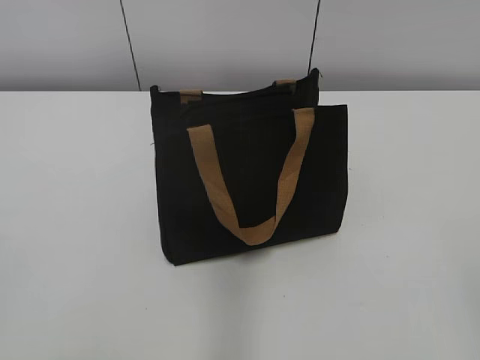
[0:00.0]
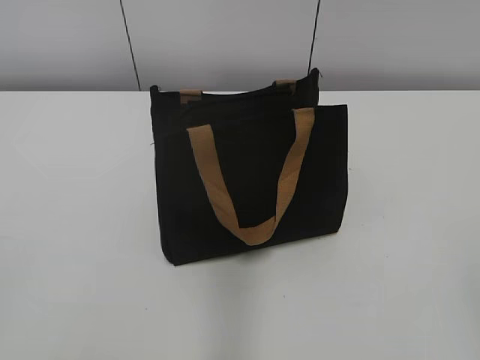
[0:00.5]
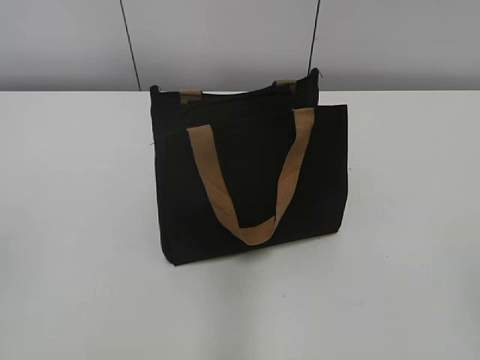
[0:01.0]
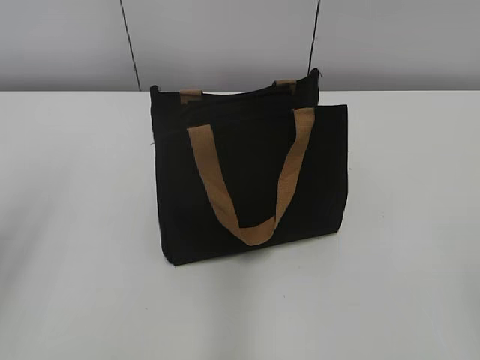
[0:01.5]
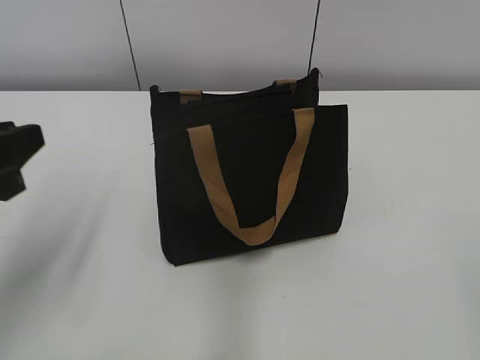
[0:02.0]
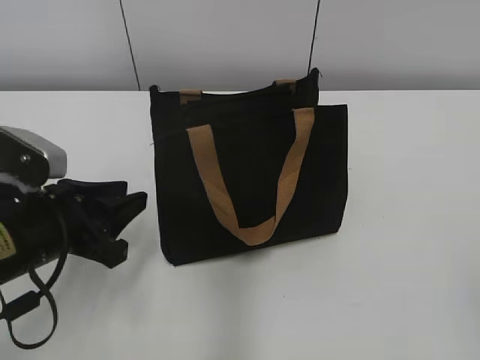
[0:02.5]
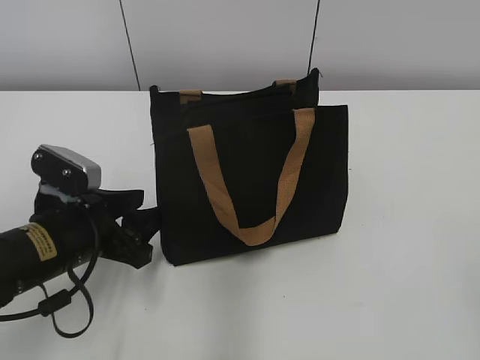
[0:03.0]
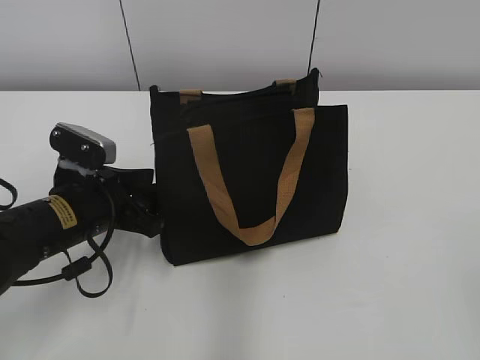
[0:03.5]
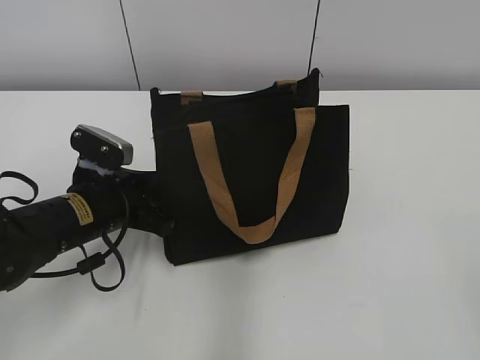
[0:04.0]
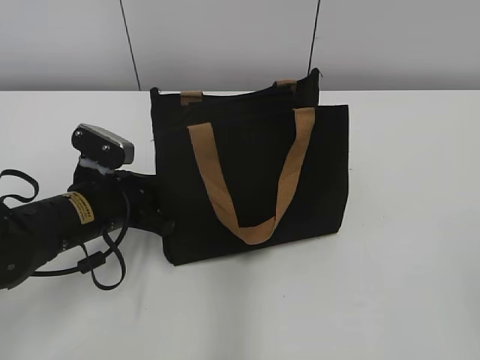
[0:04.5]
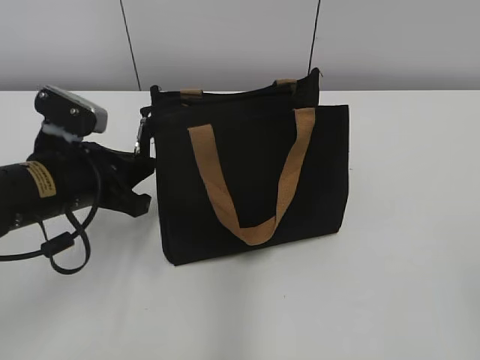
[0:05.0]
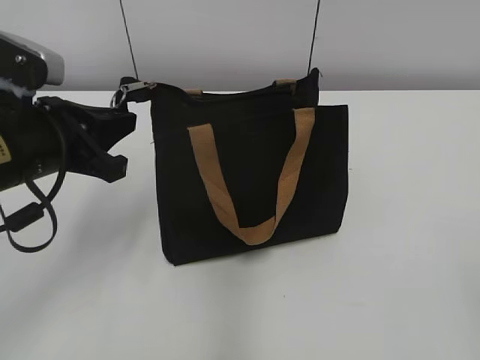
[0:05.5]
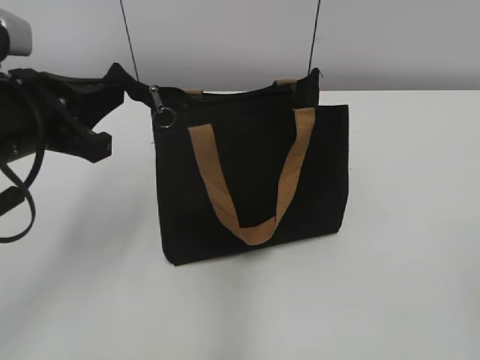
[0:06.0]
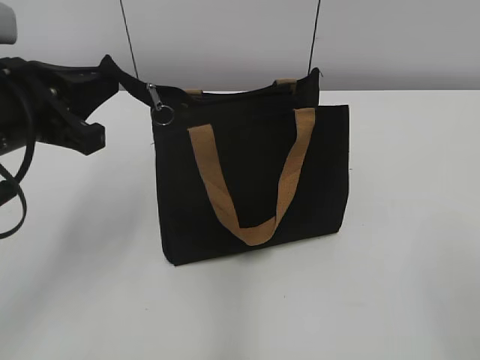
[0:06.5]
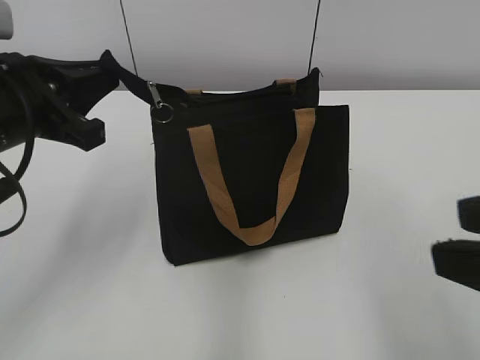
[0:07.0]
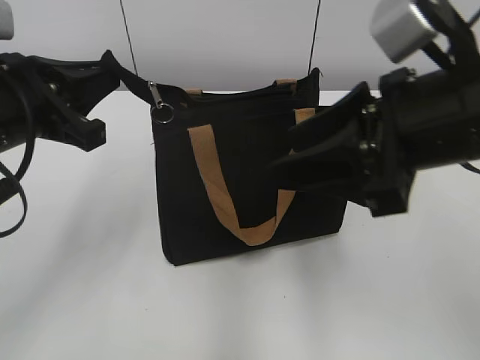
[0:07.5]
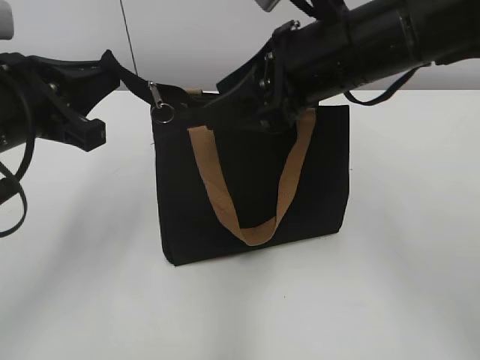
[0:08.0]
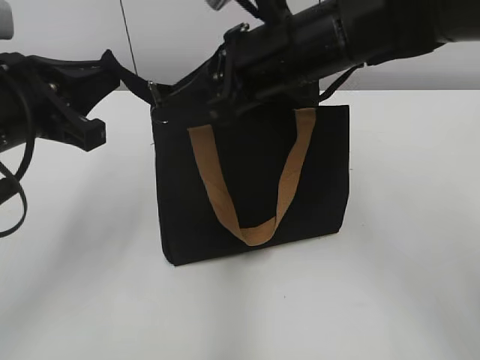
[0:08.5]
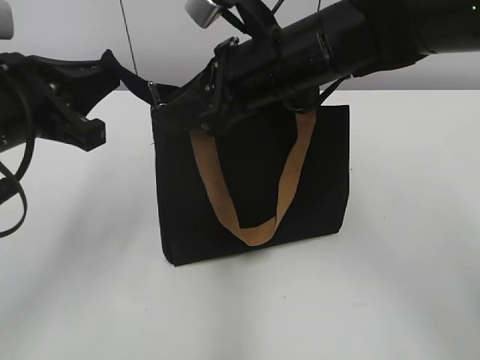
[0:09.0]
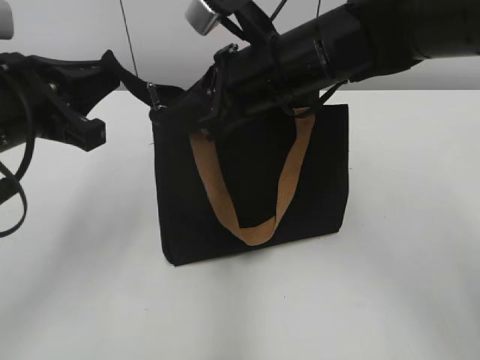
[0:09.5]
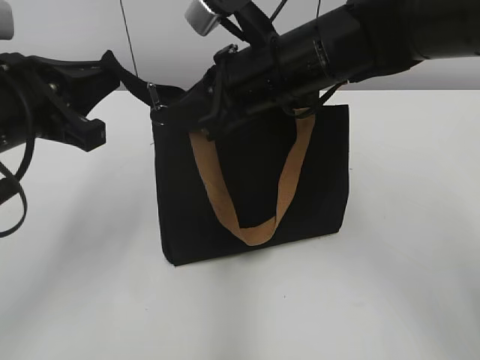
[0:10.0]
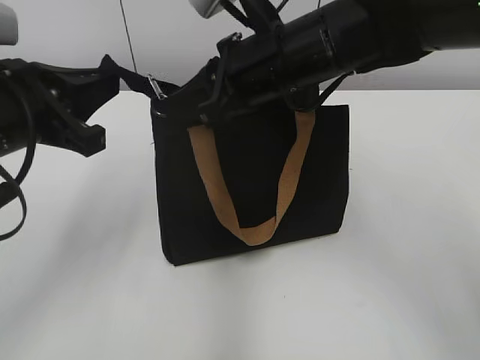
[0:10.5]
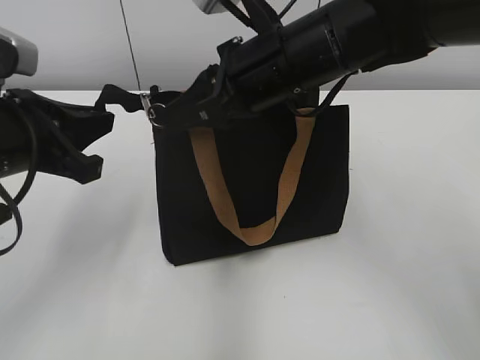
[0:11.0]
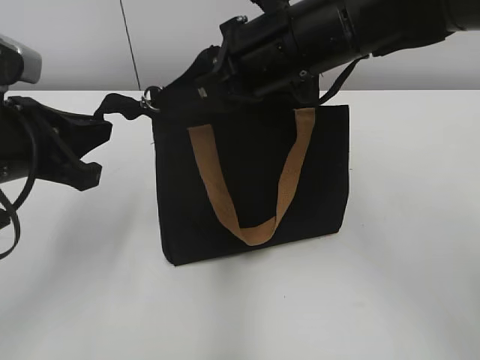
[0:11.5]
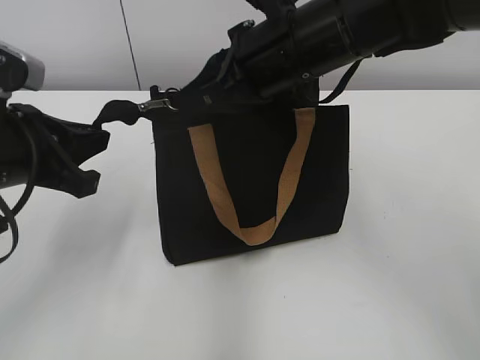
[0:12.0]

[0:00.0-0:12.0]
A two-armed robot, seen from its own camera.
0:02.0 to 0:04.0: The left gripper shifts about 20 cm downward, forward and to the right.
0:04.0 to 0:06.0: The left gripper goes some 15 cm upward, and closes.
0:06.0 to 0:08.0: The right gripper travels forward and to the left by approximately 35 cm.
0:08.0 to 0:10.0: The right gripper ends up some 5 cm from where it was, and closes its fingers.
0:10.0 to 0:12.0: The grippers move only a little.

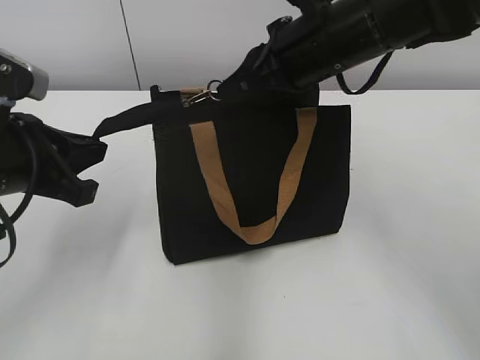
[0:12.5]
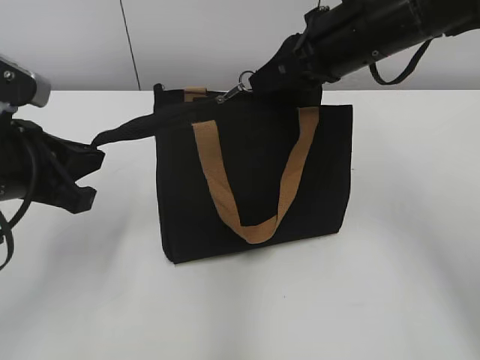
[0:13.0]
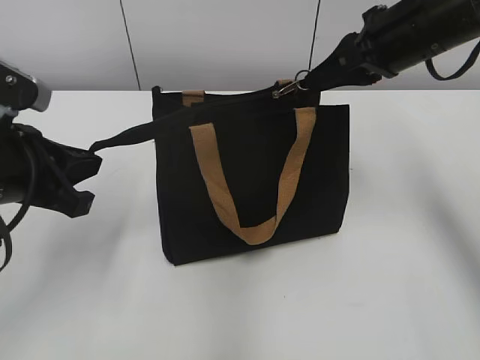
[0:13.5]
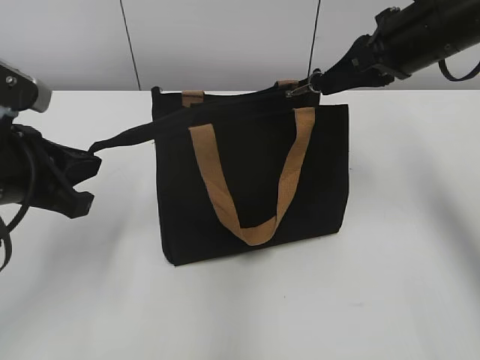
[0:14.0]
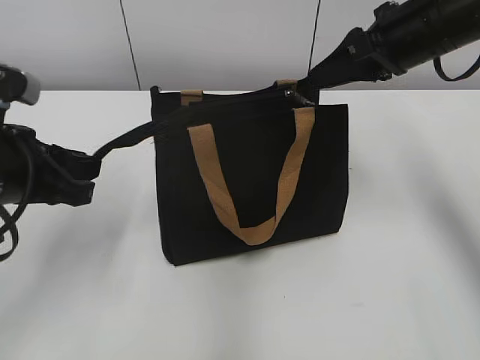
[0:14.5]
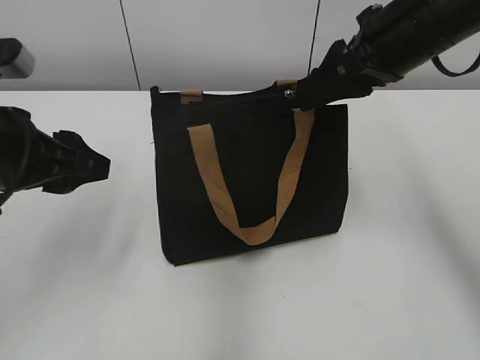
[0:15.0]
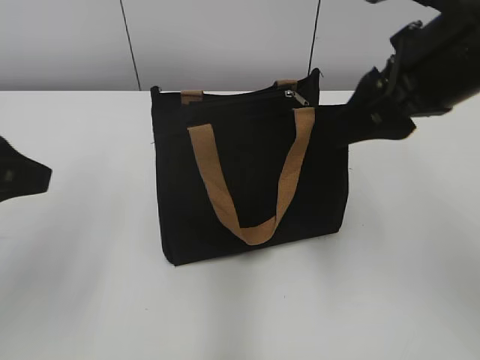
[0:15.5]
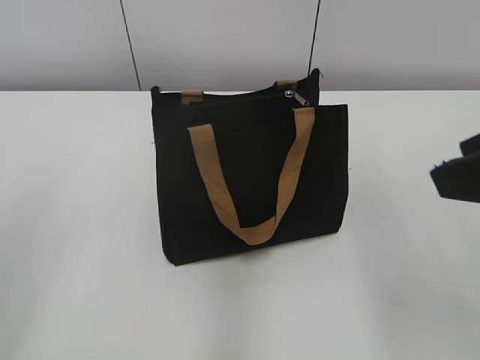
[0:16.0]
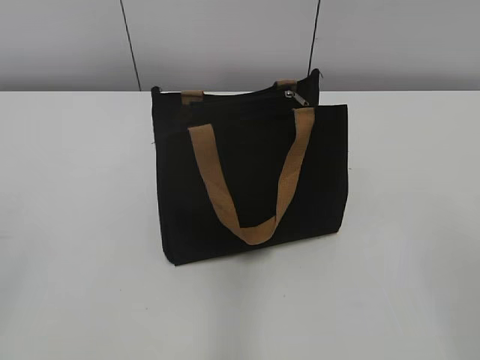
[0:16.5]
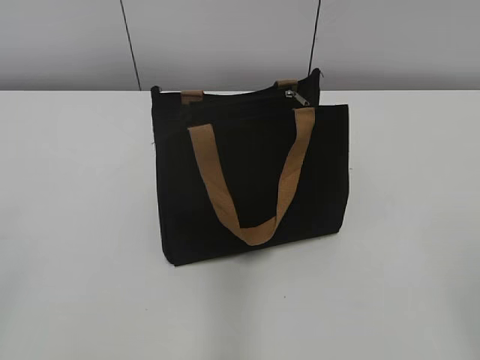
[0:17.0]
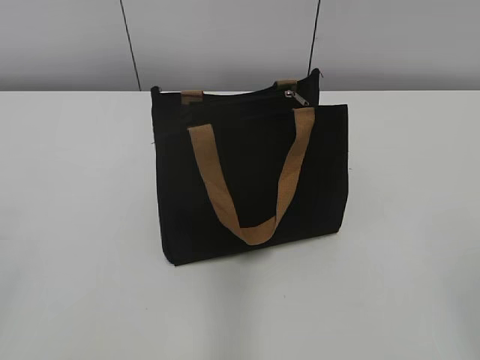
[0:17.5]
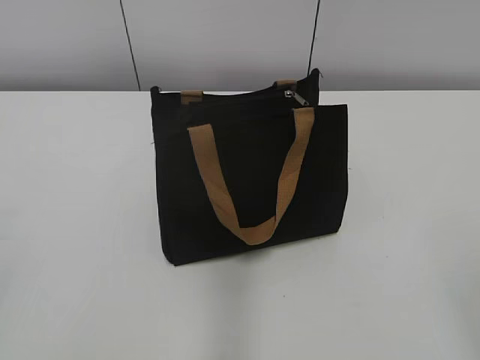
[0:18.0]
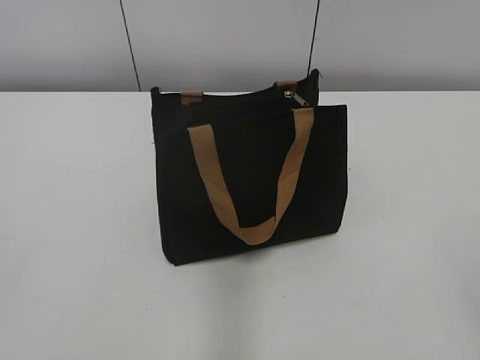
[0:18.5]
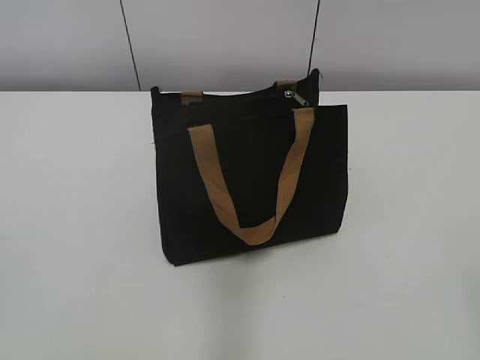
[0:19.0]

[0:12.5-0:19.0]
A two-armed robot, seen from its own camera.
0:12.5 to 0:14.5: The right gripper moves to the right, about 10 cm, and opens its fingers.
0:14.5 to 0:17.0: The right gripper is displaced backward by roughly 35 cm. The left gripper travels backward and to the left by roughly 25 cm, and opens.

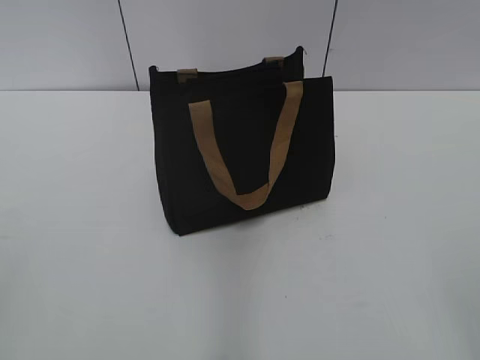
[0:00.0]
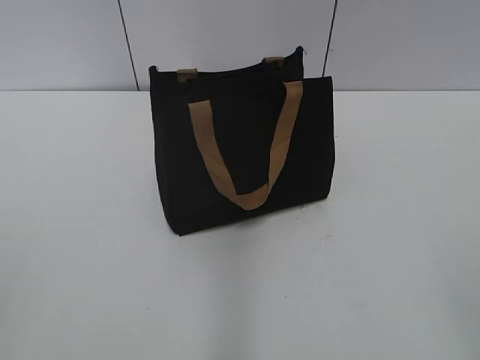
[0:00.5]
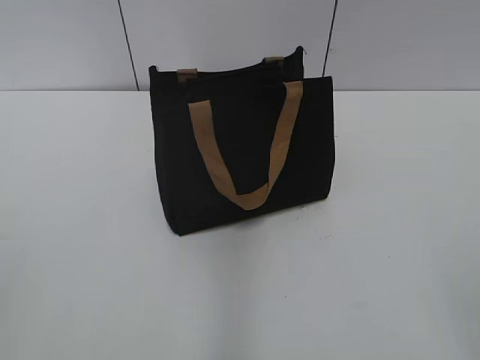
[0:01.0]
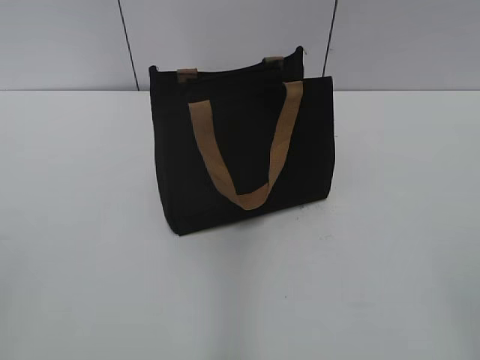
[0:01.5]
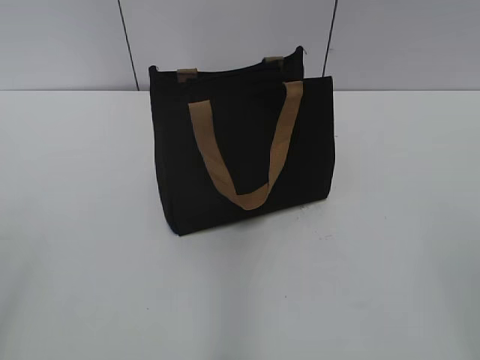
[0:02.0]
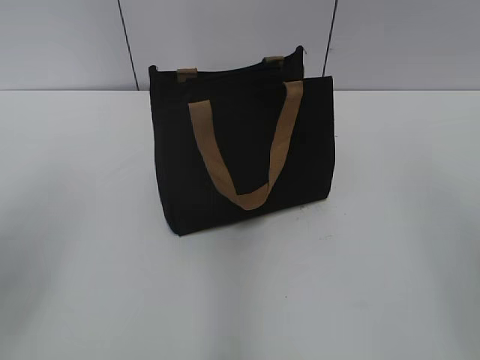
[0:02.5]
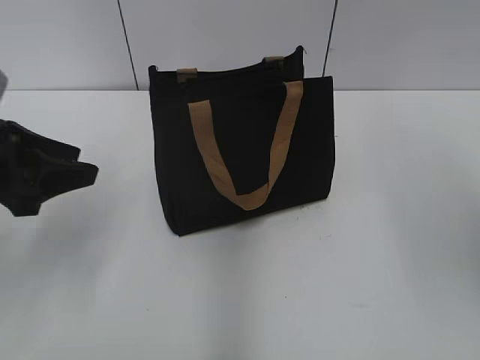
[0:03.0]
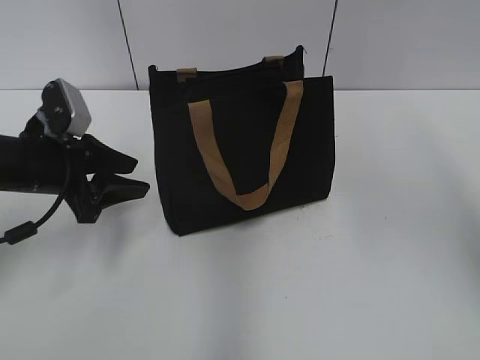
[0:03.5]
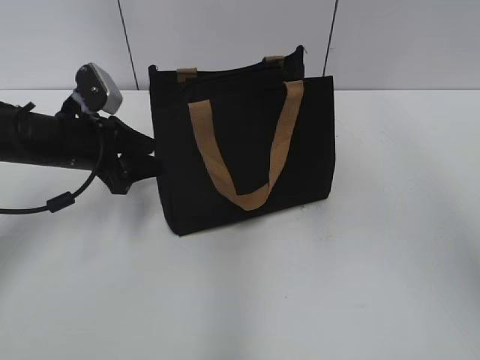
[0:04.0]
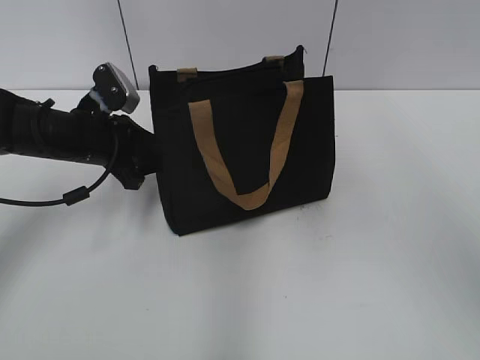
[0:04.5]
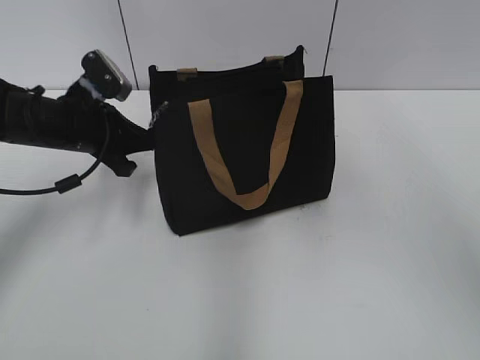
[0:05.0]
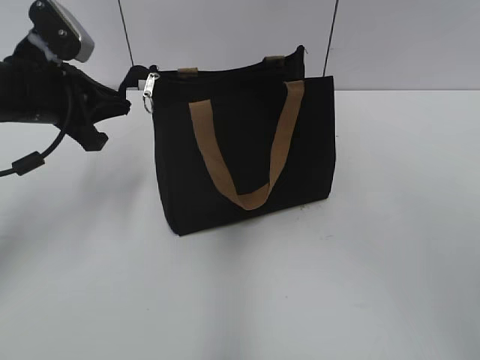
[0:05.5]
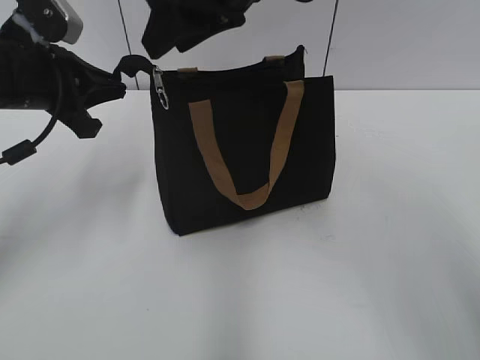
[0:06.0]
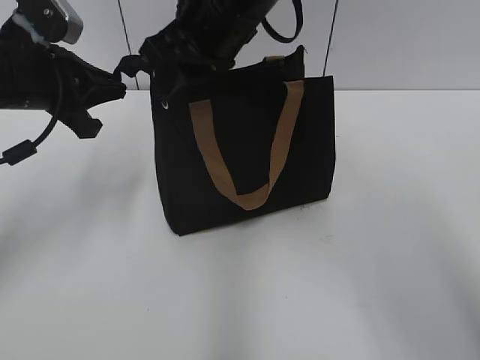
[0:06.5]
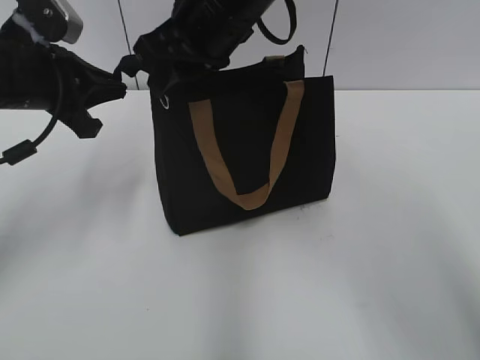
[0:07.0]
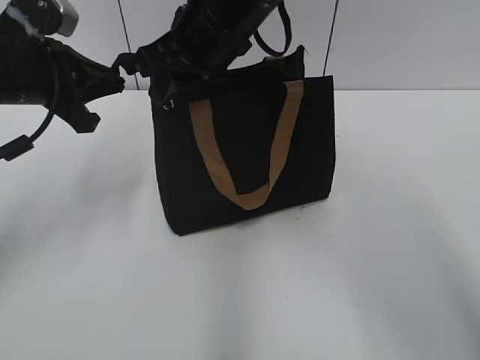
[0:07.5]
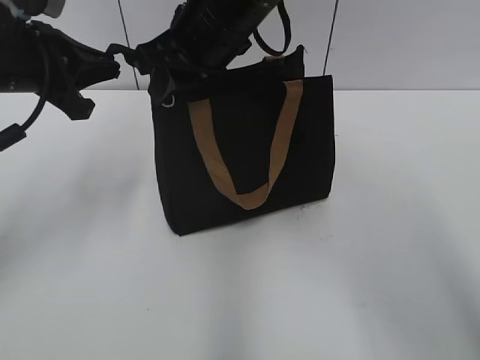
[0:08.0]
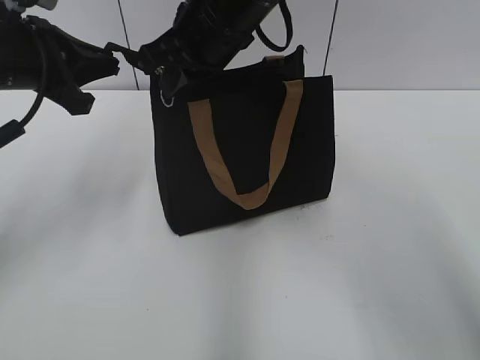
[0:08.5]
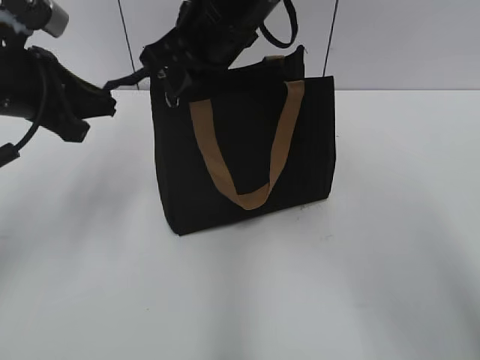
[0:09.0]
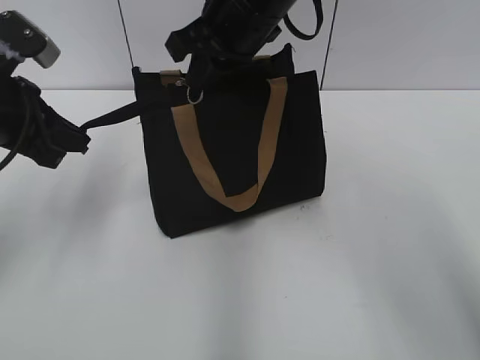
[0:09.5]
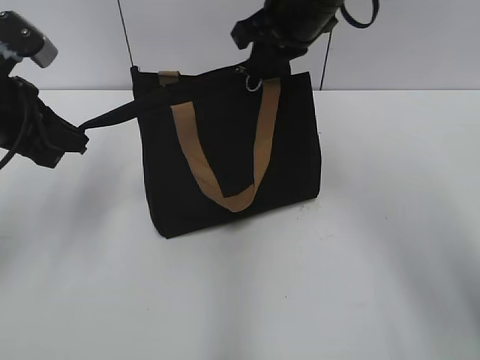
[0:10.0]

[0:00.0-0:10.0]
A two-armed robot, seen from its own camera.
0:02.0 to 0:04.0: The right gripper is displaced forward and upward by roughly 30 cm. The left gripper travels forward and downward by roughly 35 cm.
0:04.0 to 0:06.0: The left gripper goes some 10 cm upward, and closes its fingers. The right gripper is displaced to the left, downward and forward by roughly 20 cm.
0:06.0 to 0:08.0: The right gripper shifts about 5 cm downward.
0:08.0 to 0:10.0: The right gripper heads to the right, covering approximately 10 cm, and closes its fingers.
